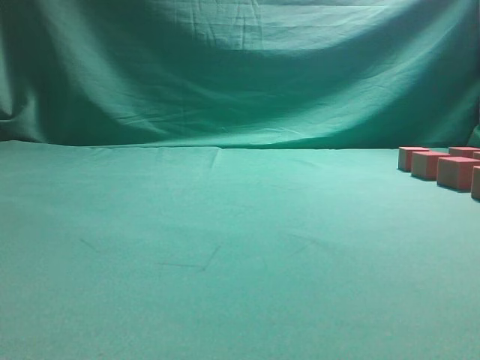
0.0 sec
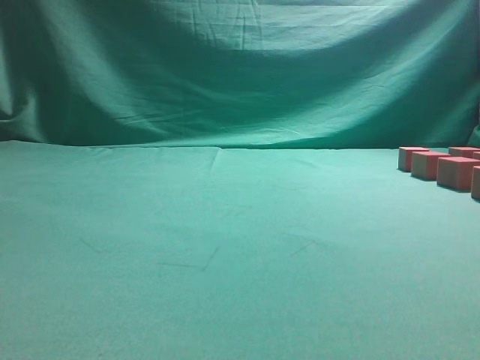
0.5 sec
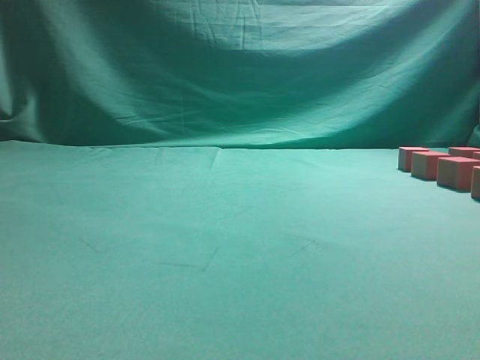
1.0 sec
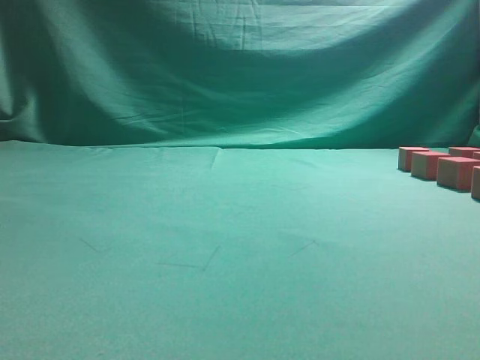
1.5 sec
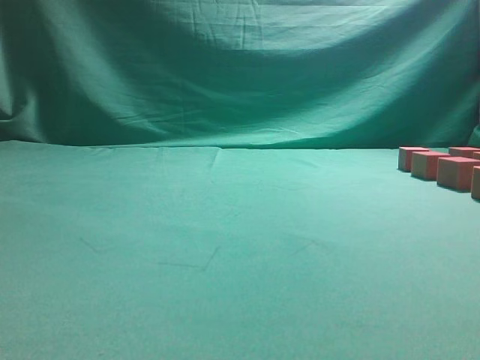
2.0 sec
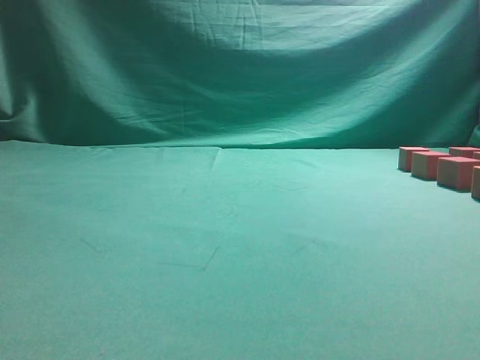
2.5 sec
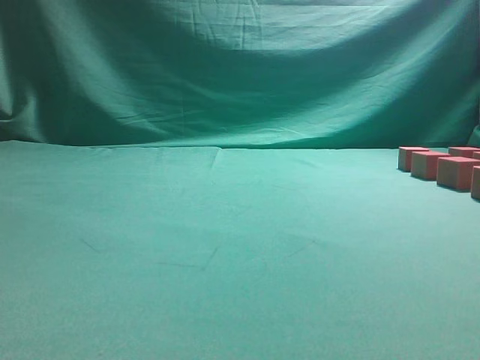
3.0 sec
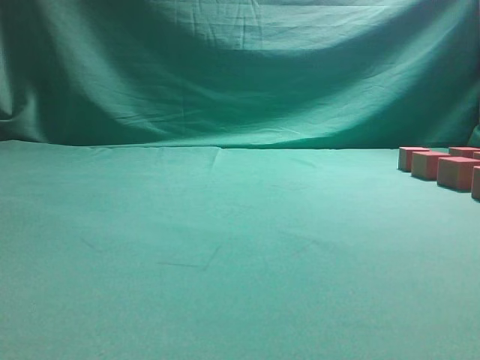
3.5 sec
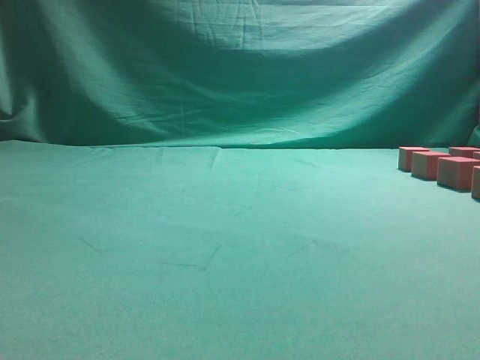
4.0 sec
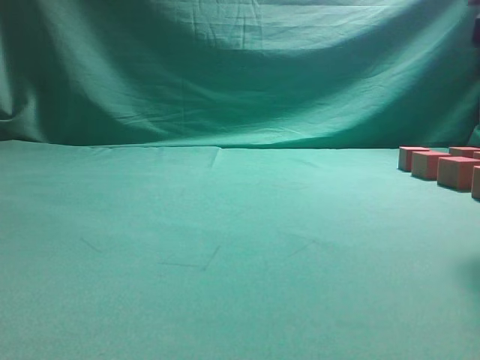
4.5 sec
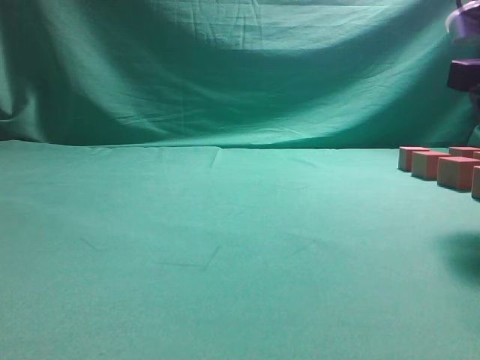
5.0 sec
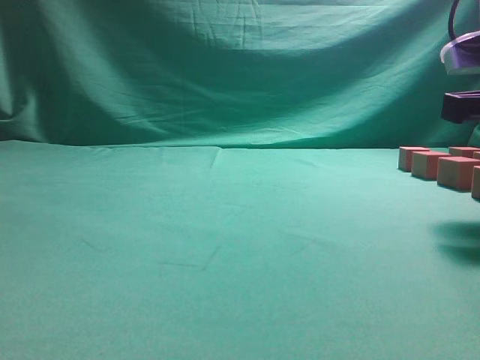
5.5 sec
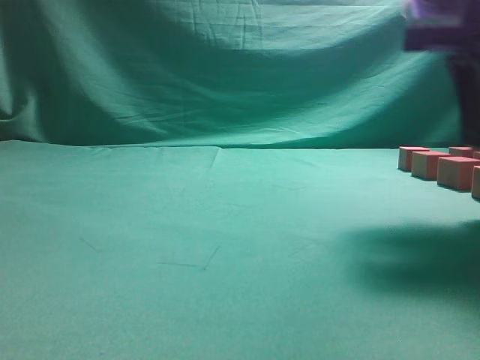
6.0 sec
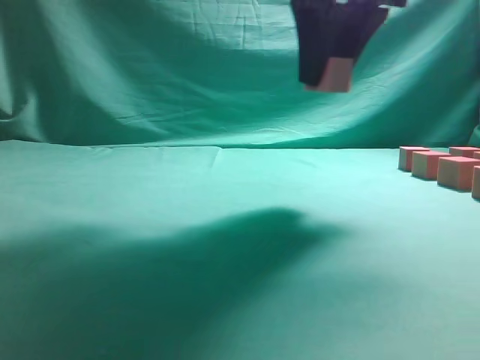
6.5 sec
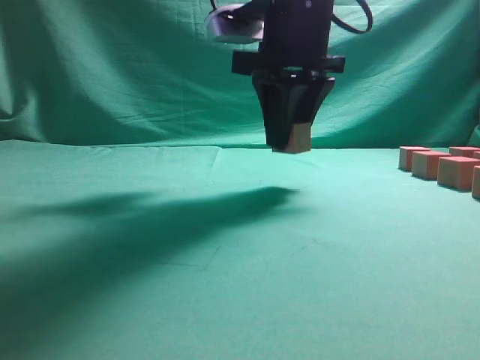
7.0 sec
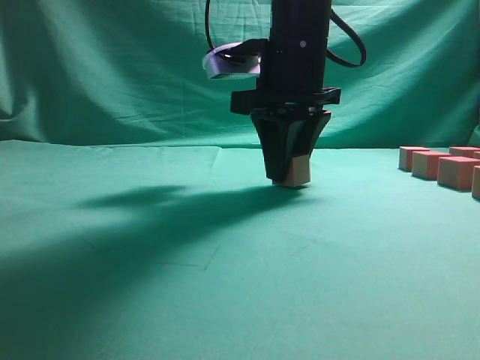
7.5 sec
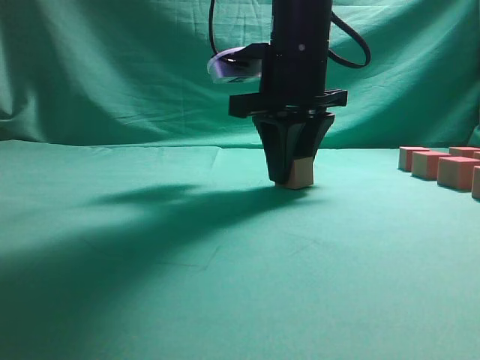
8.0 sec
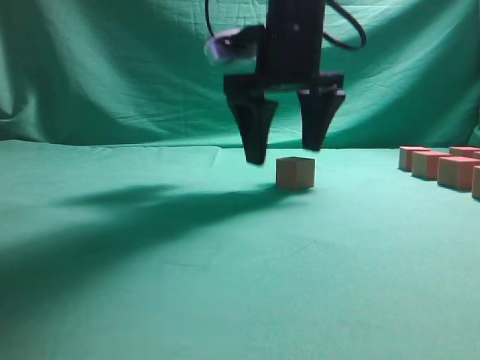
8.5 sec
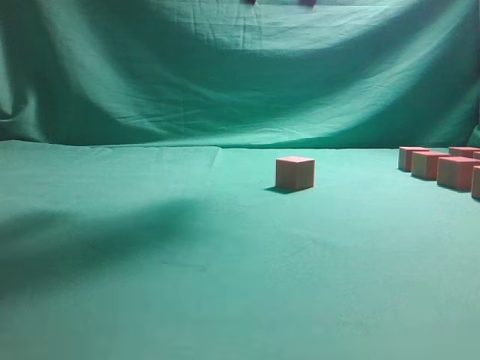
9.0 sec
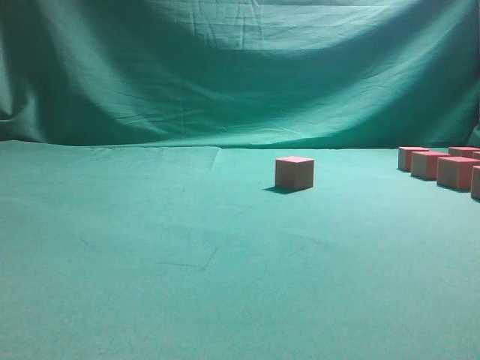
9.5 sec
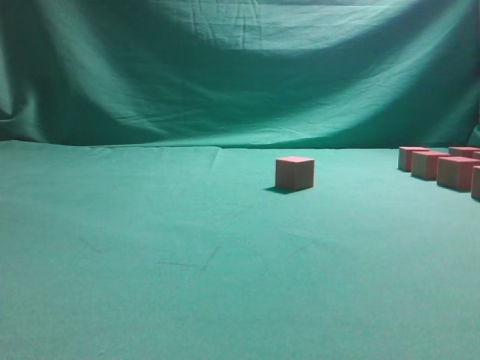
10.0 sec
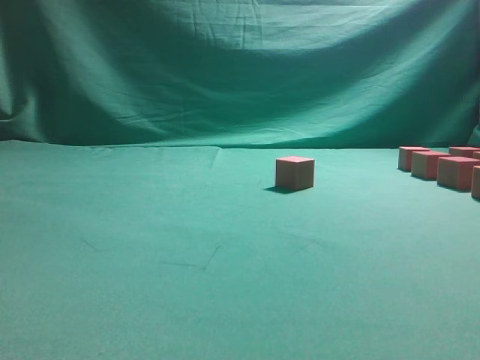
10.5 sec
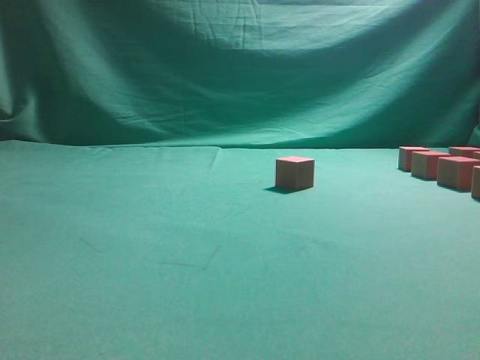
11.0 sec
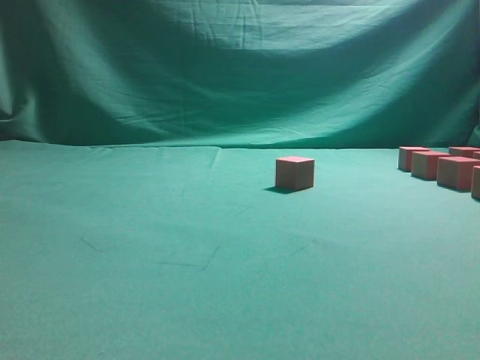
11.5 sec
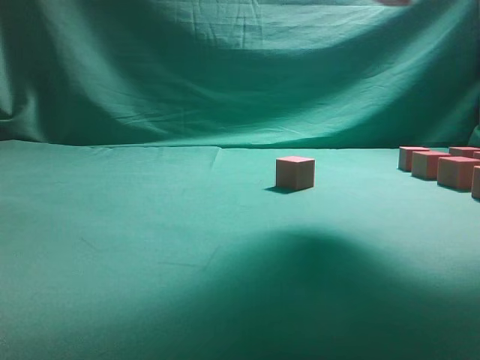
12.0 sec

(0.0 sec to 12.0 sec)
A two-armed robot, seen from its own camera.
Task of the whole recording: pick up the multiple cubes in two columns one by one and place them in another position on the table.
Step, 0.0 sec - 5.5 sec: Pick up the block on the table.
Step, 6.0 sec - 8.5 sec: Place the block at the correct position to assemble the letter S.
Step, 9.0 sec - 11.0 sec: Pick up the block on the table.
4.0 sec - 6.0 sec: The right gripper goes some 10 cm forward and downward, and opens up.
6.0 sec - 8.0 sec: The right gripper heads to the left and forward, covering about 20 cm.
8.0 sec - 10.0 sec: The right gripper heads to the right and backward, covering about 25 cm, and opens.
10.0 sec - 12.0 sec: The right gripper is displaced upward, to the left and forward by roughly 15 cm, and closes its fingers.

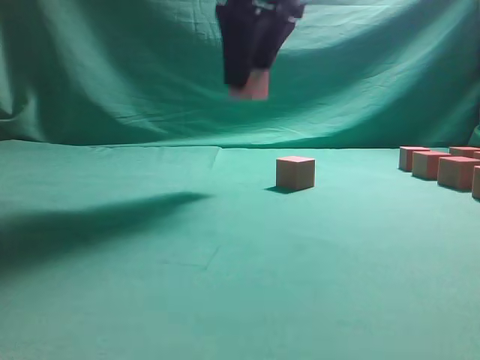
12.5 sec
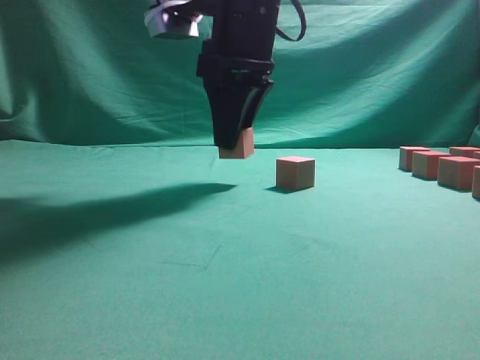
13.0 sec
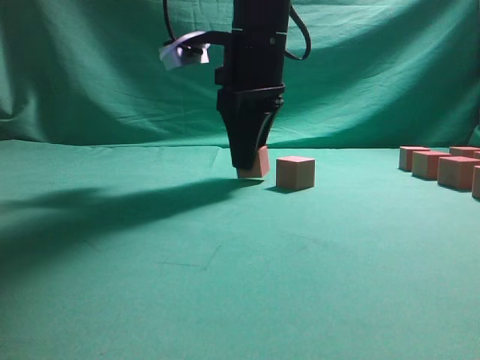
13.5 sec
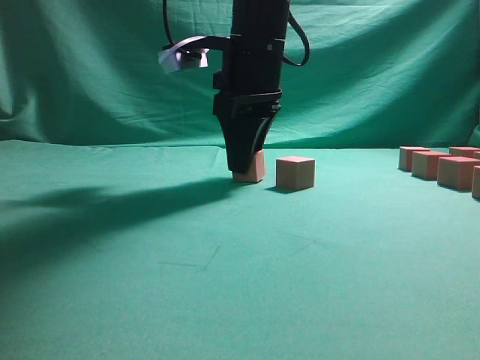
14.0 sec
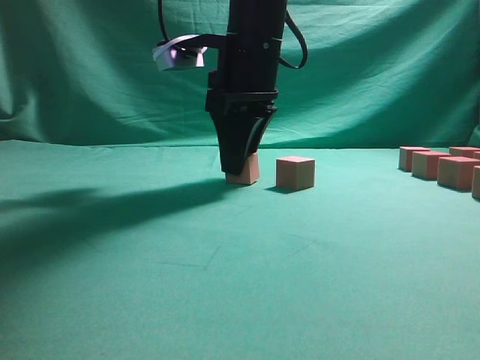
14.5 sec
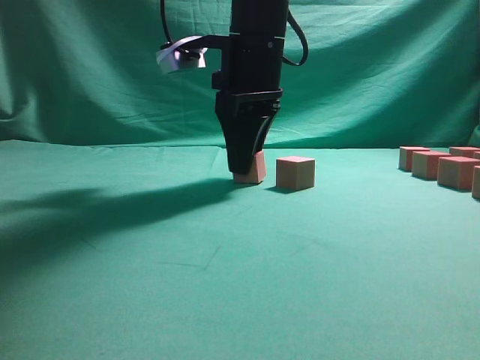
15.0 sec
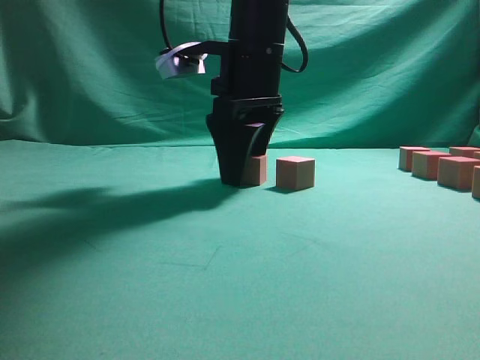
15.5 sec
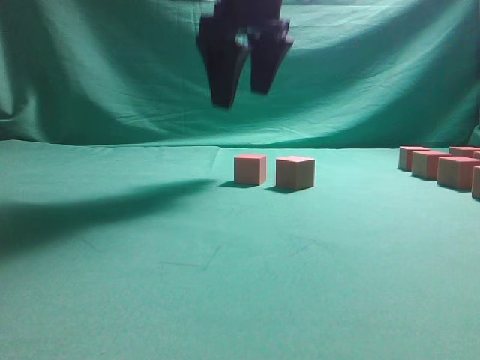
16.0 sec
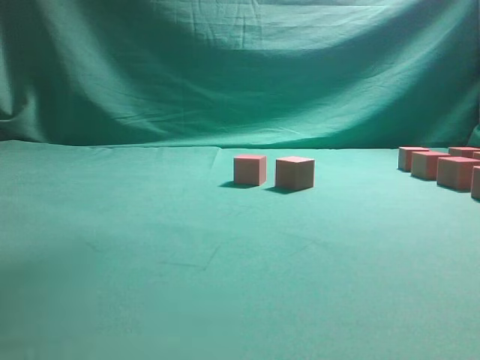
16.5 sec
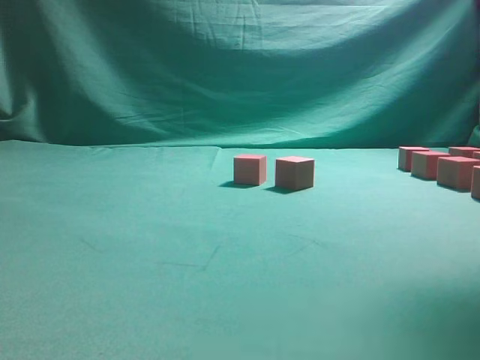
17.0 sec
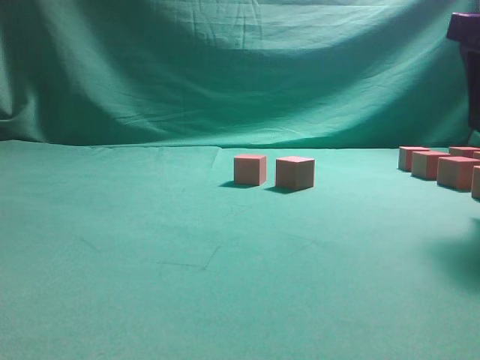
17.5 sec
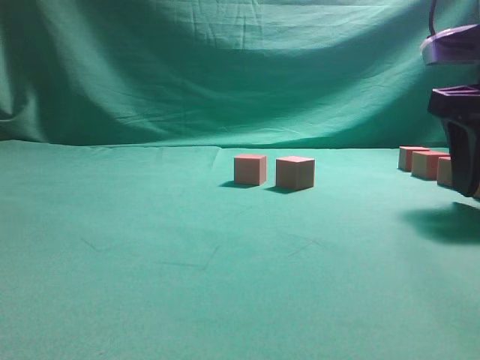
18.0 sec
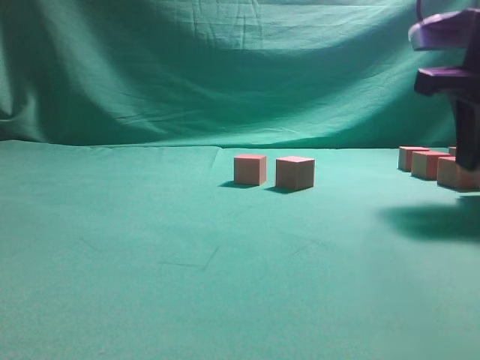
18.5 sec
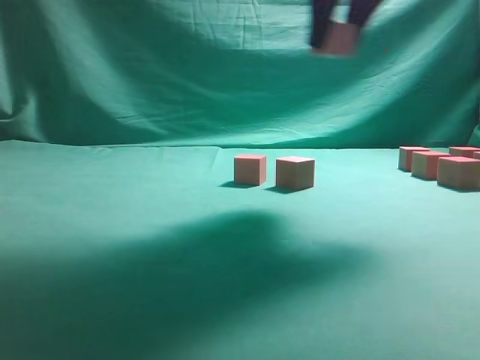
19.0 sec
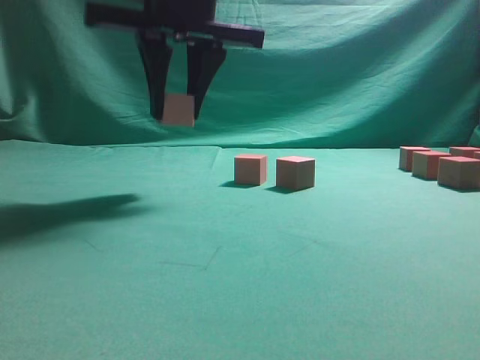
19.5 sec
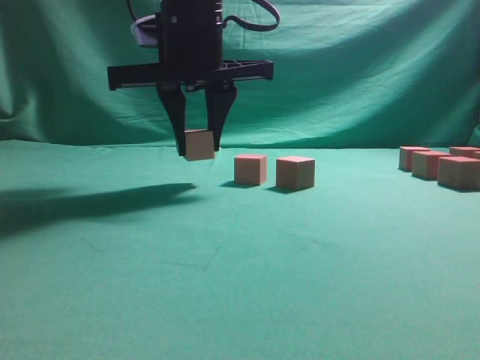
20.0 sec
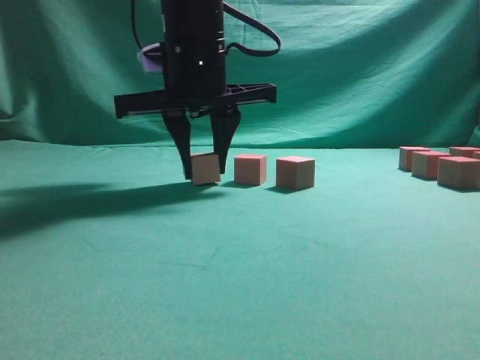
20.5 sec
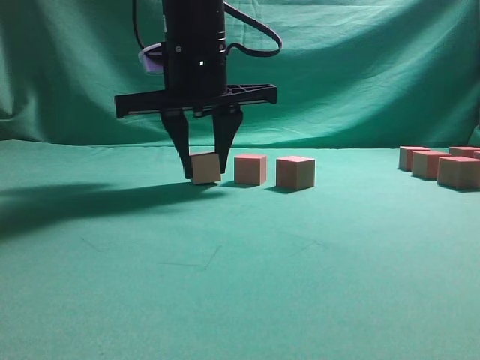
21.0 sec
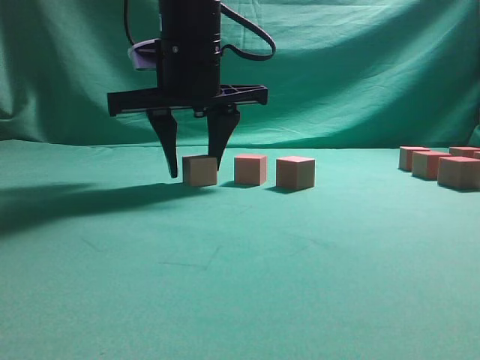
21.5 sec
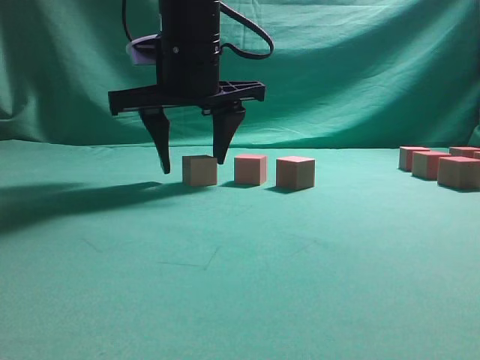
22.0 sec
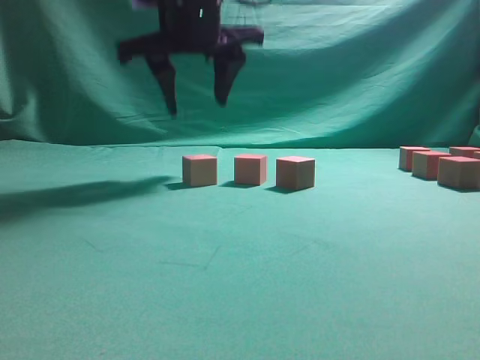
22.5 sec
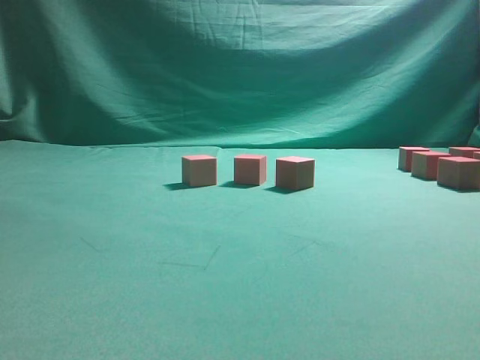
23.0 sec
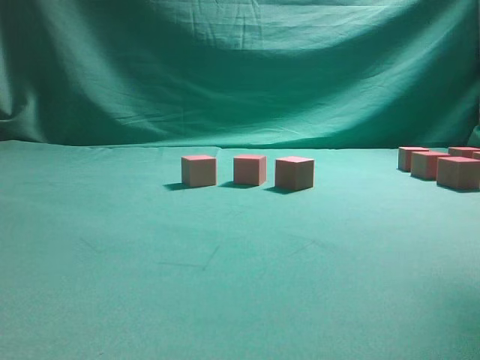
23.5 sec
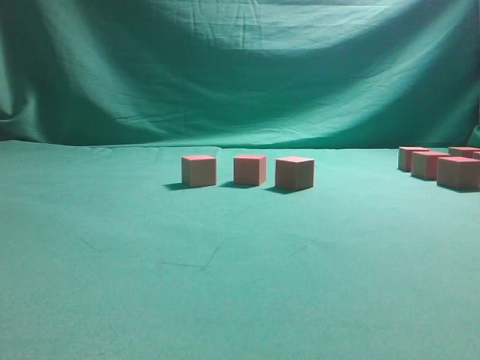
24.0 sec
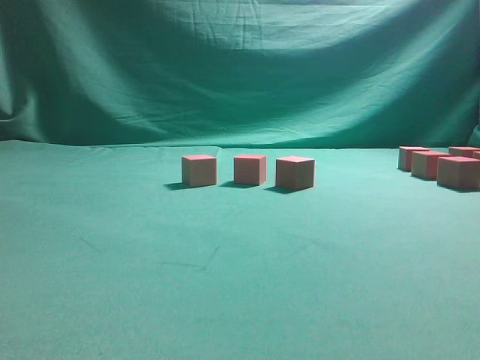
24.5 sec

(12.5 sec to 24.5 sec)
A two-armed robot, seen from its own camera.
Task of the whole recording: pick up the multiple cubes in two columns one by one and place them in another position on the table.
Step, 12.5 sec - 16.0 sec: Place the block at the correct position to assemble the letter S.
Step, 16.5 sec - 18.5 sec: Pick up the block on the table.
Step, 19.0 sec - 22.5 sec: Place the block at the correct position to assemble the letter S.
12.5 sec - 14.5 sec: The right gripper goes about 10 cm downward.
14.5 sec - 16.5 sec: The right gripper shifts some 25 cm upward, and opens.
16.5 sec - 18.5 sec: The right gripper is displaced downward and to the right by about 30 cm, and closes.
18.5 sec - 20.5 sec: The right gripper goes roughly 25 cm to the left.
20.5 sec - 22.5 sec: The right gripper moves some 5 cm.
22.5 sec - 24.5 sec: The right gripper travels to the right by some 35 cm.

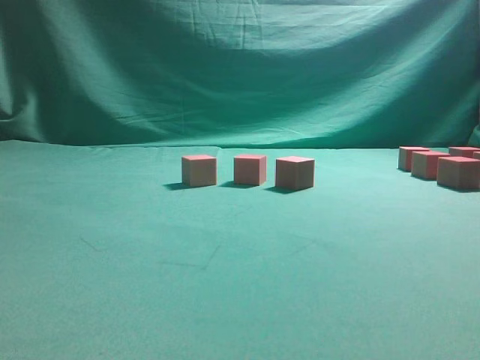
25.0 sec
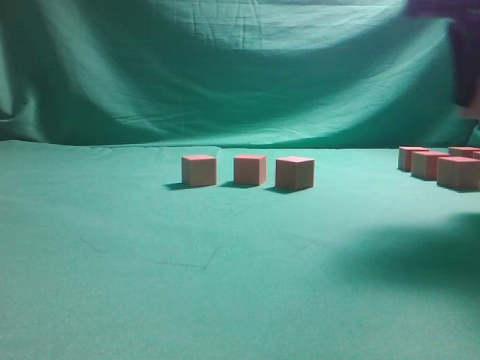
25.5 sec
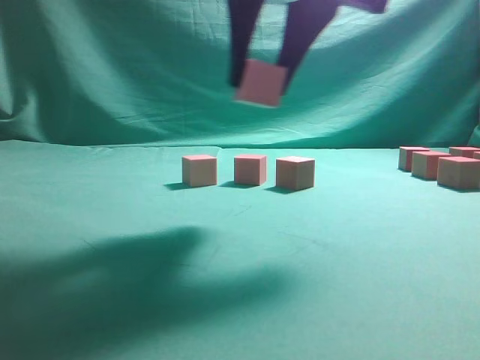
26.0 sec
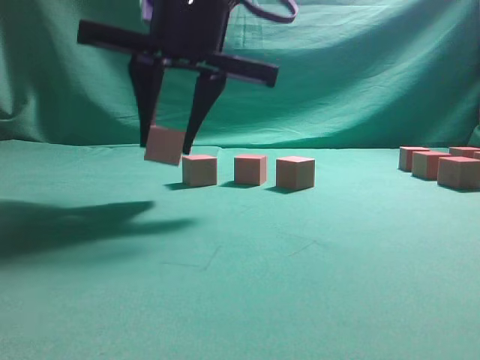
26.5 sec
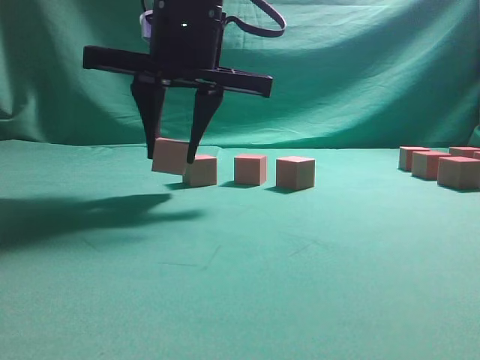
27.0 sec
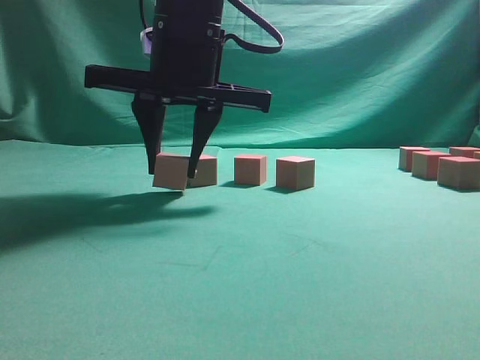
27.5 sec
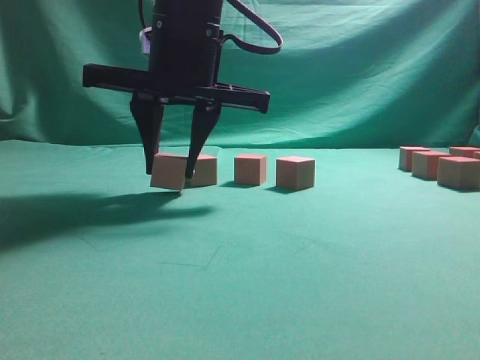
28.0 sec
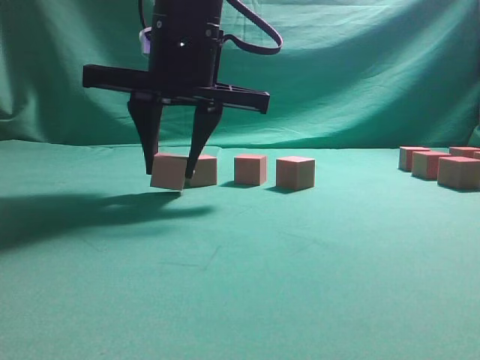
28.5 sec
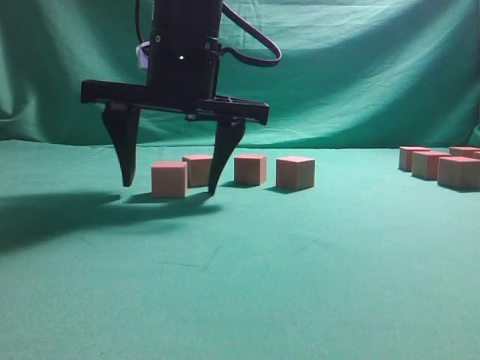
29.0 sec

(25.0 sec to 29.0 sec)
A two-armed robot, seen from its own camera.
Task of the whole recording: pick up the multiple cubes in two columns one by one and place them in another position on the table.
25.0 sec - 27.0 sec: The right gripper goes about 35 cm to the left.
27.0 sec - 29.0 sec: The right gripper opens its fingers.
